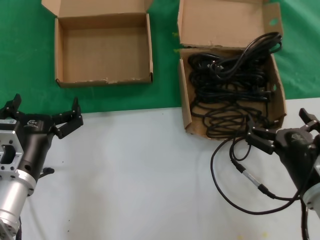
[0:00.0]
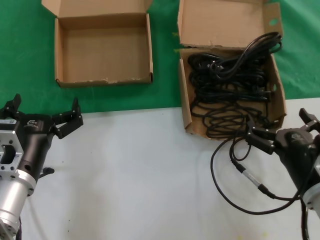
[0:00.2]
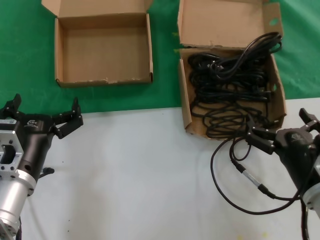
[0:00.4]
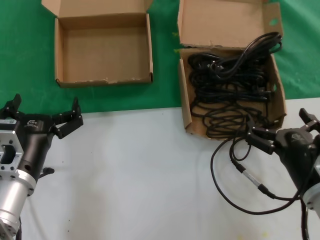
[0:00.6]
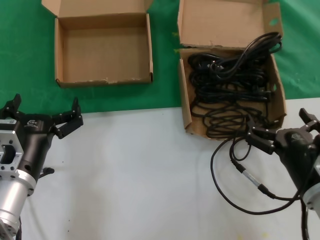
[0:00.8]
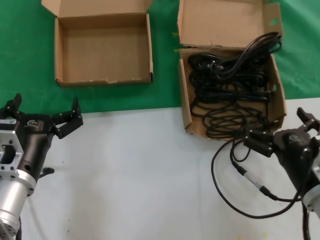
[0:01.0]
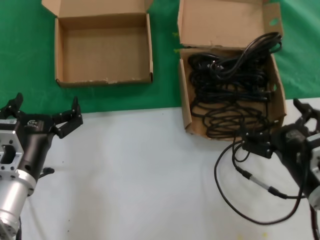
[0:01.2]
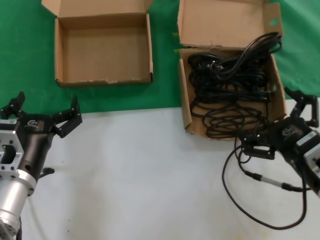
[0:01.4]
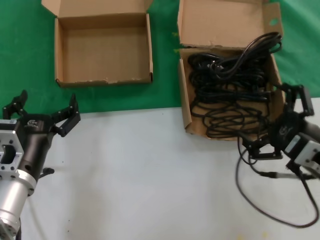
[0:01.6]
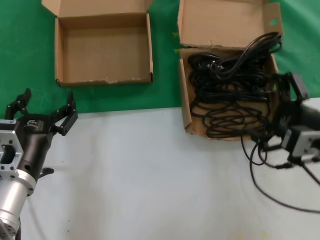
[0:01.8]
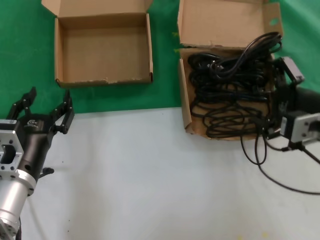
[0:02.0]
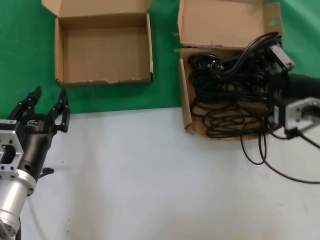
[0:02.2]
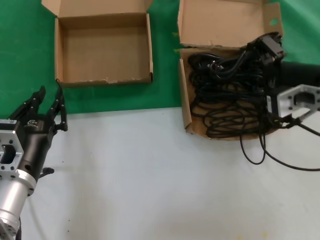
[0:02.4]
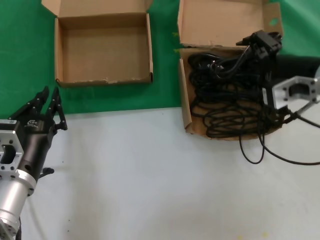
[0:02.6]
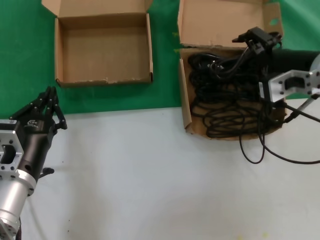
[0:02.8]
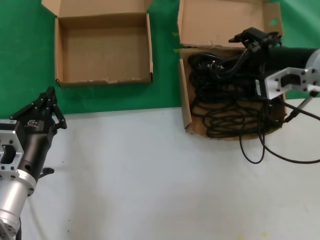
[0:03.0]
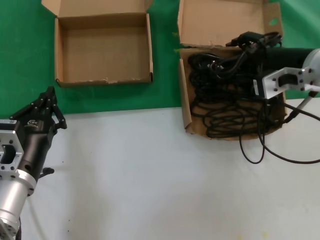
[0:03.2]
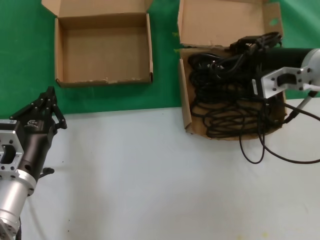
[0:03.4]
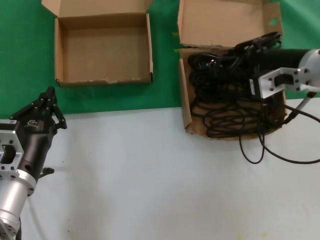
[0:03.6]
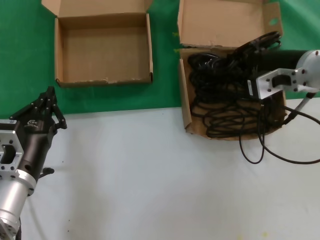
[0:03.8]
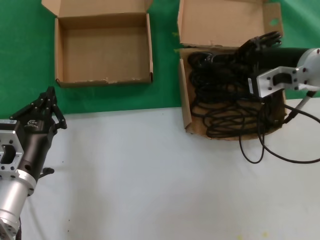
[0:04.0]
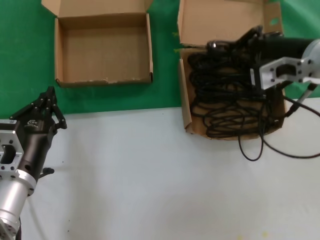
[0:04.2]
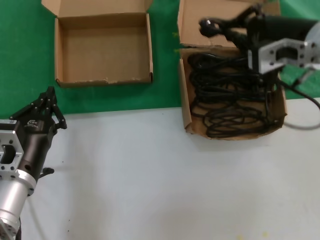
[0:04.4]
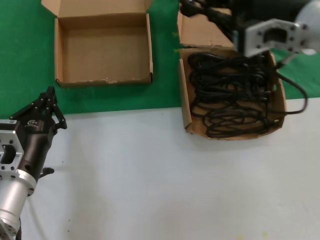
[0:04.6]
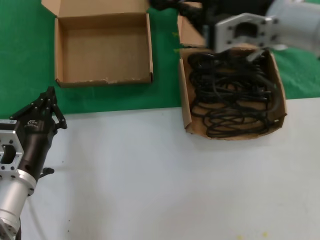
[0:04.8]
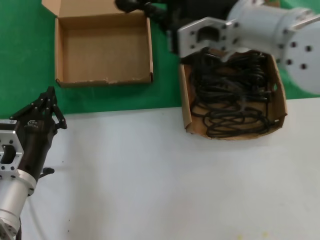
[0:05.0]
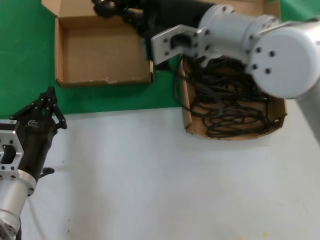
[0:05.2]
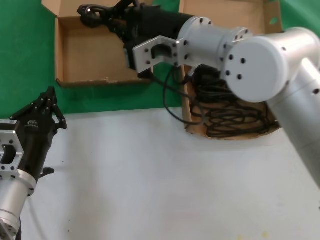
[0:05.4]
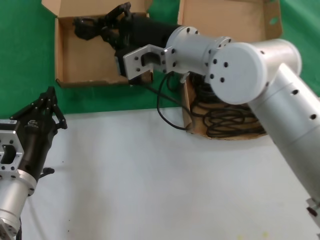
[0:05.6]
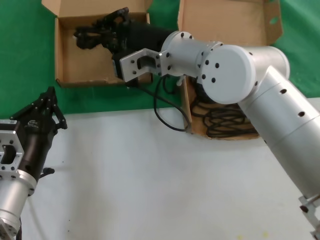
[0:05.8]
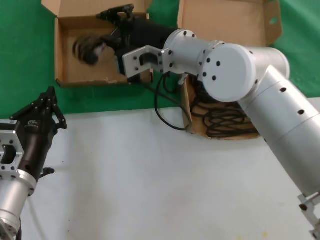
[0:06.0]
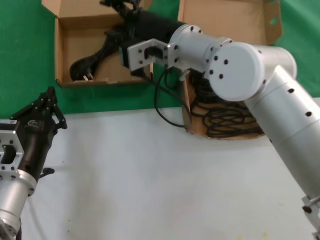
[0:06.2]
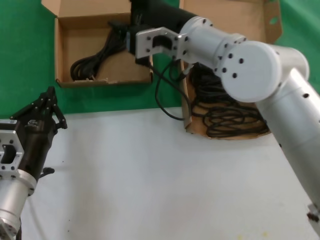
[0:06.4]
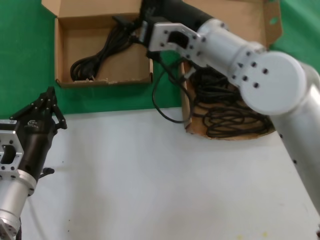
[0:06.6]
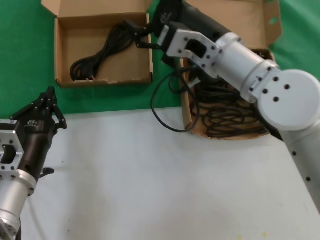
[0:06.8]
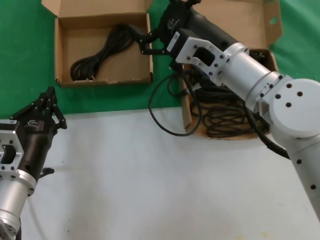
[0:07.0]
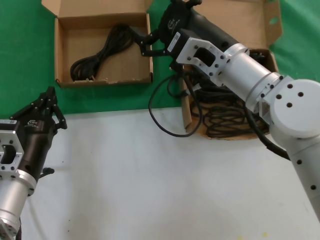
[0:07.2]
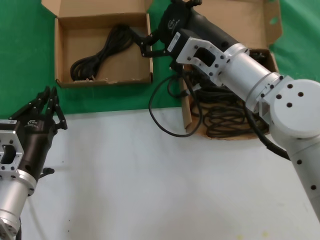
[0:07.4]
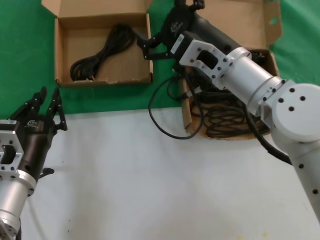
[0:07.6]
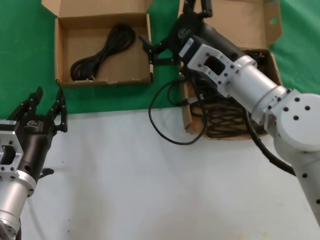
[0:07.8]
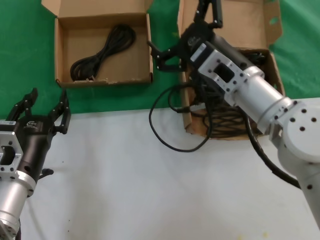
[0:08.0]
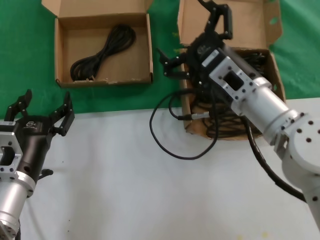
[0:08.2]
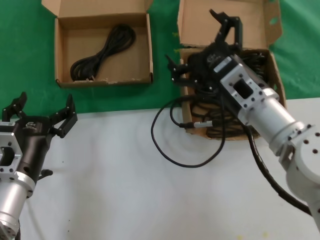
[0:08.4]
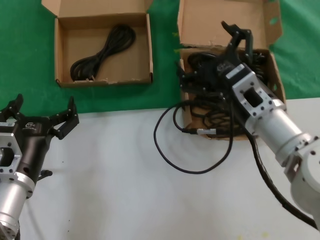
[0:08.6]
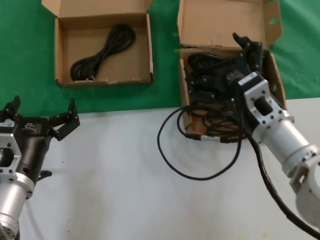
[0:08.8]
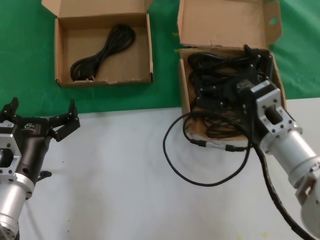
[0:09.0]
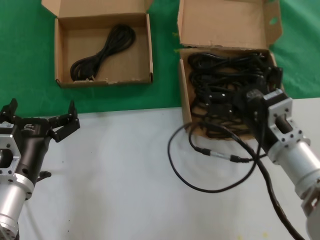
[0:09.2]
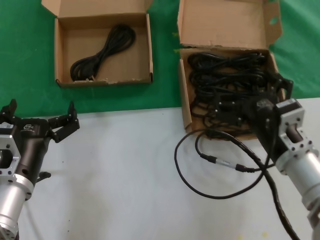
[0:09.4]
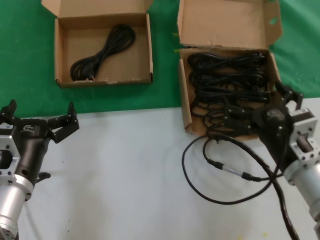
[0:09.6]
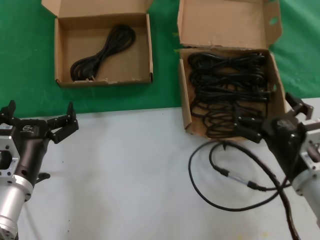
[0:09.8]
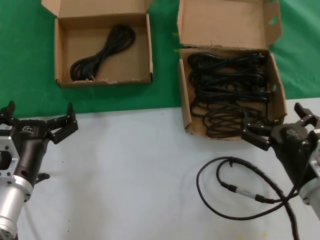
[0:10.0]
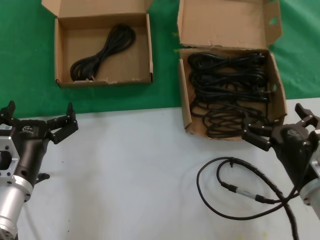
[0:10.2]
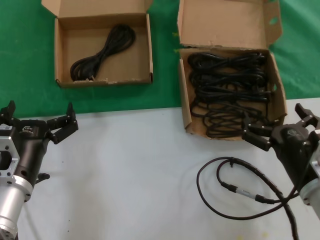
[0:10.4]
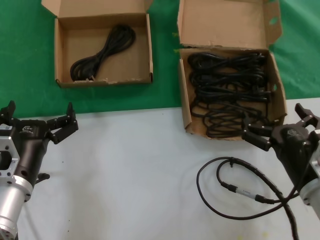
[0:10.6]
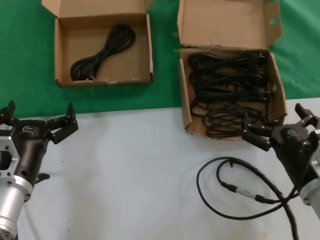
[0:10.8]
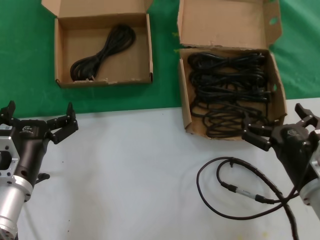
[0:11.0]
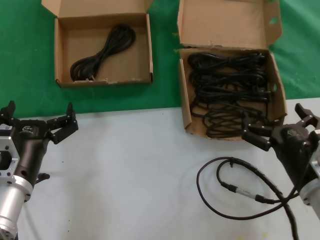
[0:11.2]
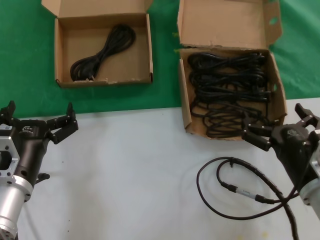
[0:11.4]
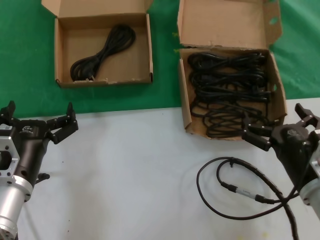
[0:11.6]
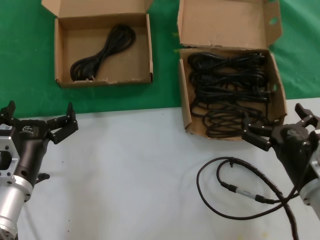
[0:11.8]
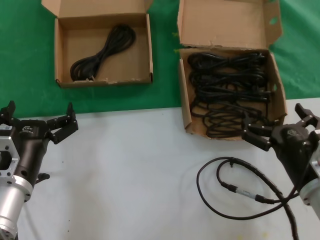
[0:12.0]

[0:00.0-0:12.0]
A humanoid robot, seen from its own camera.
Task of the whole recording: take the parts from the box containing them and put them into an empty box.
Step, 0.0 to 3.8 s: Grasp the data cable.
Step, 4.0 to 6.0 s: Place the data cable in the another box.
0.0 to 1.6 s: The right hand moves upward, approximately 10 cm.
1.6 to 3.0 s: The right hand heads forward and upward, covering roughly 20 cm.
3.0 to 4.4 s: The right hand changes place by roughly 5 cm.
4.4 to 6.0 s: The right hand shifts roughly 20 cm to the left.
6.0 to 7.6 s: The right hand goes approximately 10 cm to the right.
7.6 to 9.0 s: The right hand shifts about 15 cm downward, to the right and backward.
9.0 to 10.4 s: The right hand shifts some 10 cm backward, downward and to the right.
10.4 to 12.0 s: The two hands keep their place.

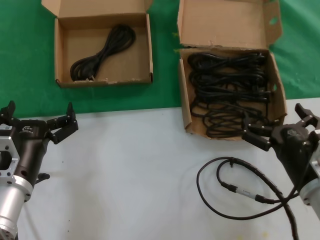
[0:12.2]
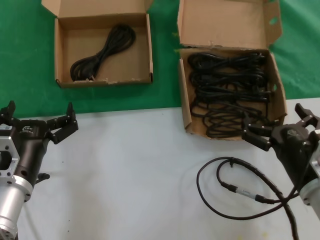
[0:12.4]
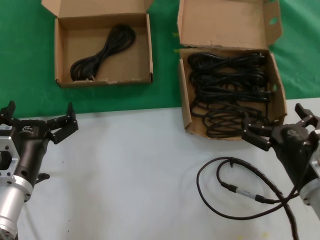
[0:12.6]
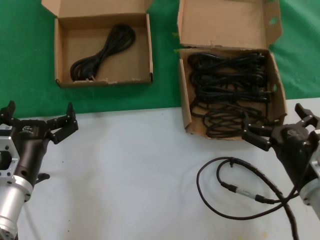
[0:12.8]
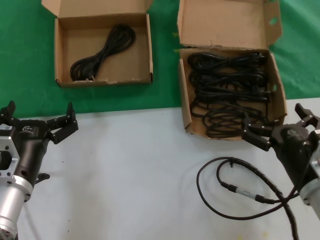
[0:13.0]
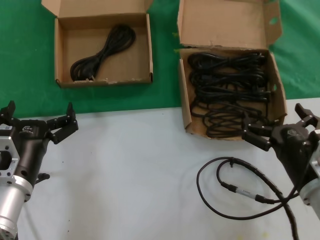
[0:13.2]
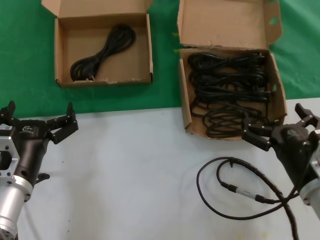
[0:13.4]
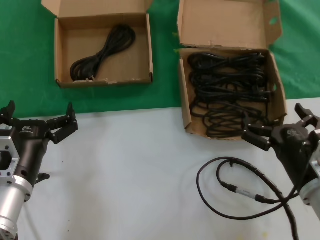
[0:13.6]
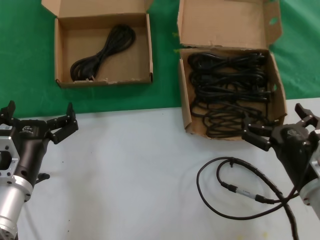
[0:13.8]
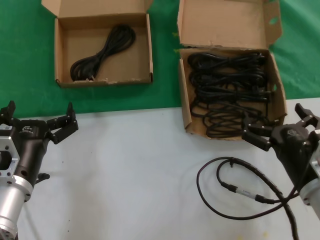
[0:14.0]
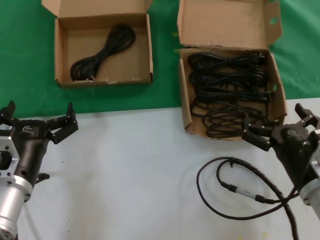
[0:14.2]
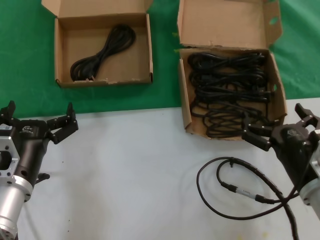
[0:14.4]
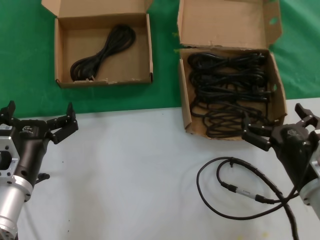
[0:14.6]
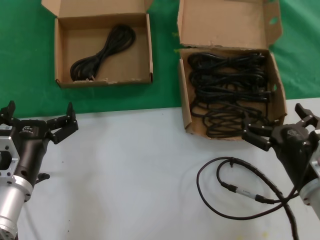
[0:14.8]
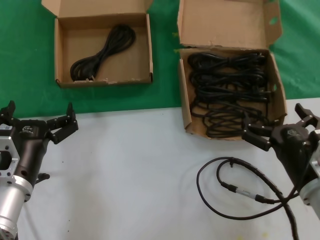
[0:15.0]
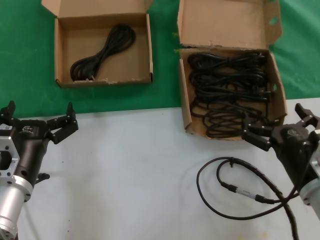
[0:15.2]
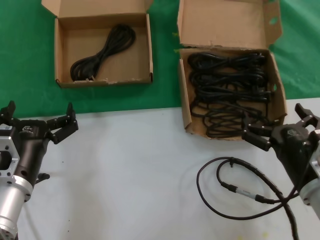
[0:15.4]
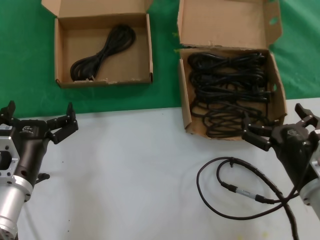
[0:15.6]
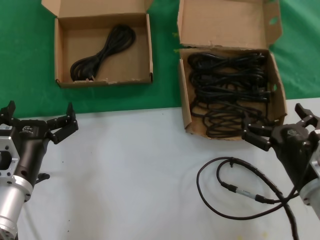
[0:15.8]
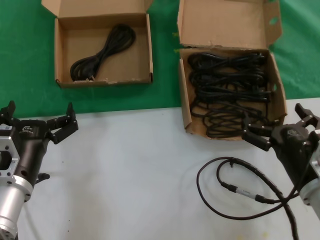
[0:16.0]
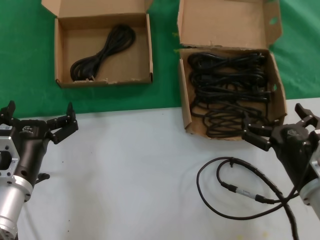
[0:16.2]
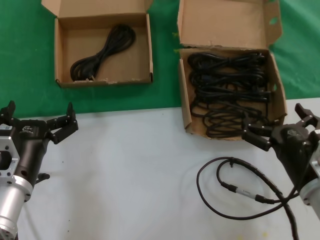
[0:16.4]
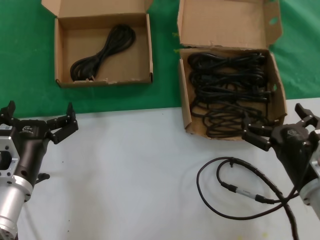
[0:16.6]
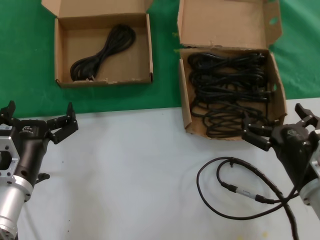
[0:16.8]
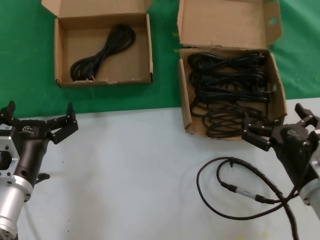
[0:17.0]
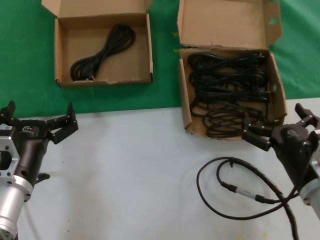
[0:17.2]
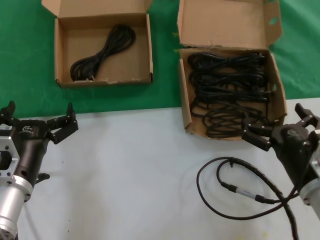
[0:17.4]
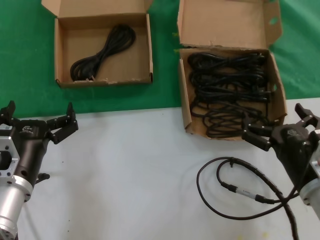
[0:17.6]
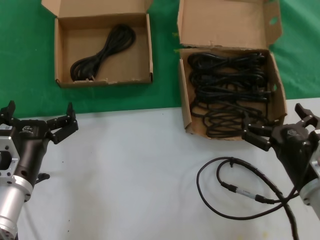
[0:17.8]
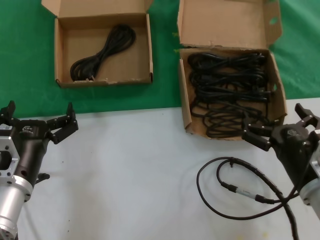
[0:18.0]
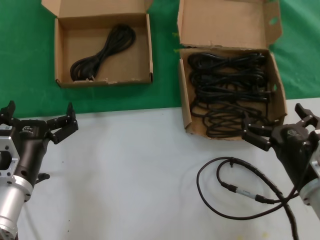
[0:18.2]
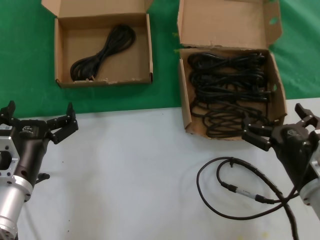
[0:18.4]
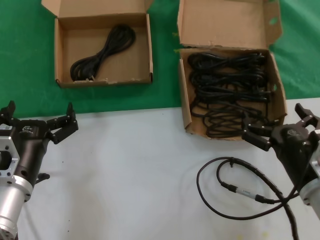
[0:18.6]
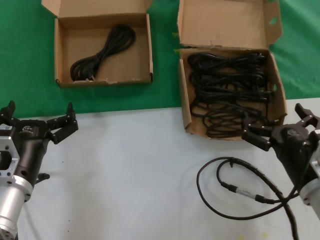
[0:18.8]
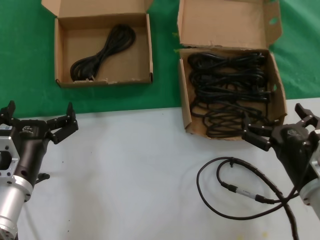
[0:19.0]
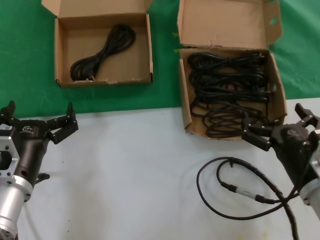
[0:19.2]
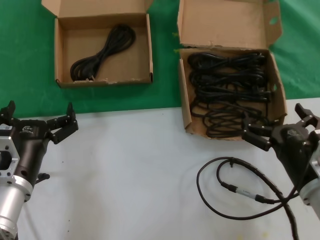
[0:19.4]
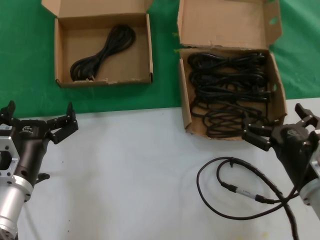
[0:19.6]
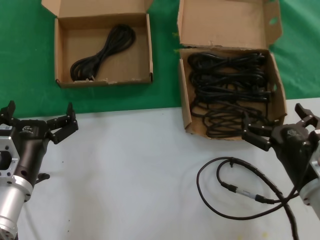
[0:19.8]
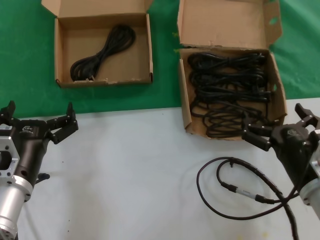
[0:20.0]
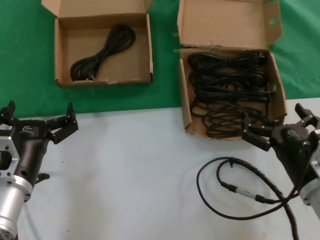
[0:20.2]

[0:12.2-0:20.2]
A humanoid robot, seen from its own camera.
Task of the whole recording: take the parts from the box containing them and put them into an empty box.
12.2 to 20.2 s: The two hands keep their place.

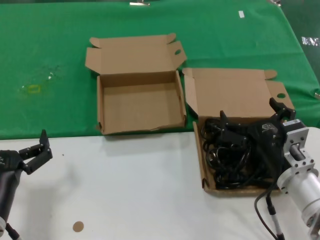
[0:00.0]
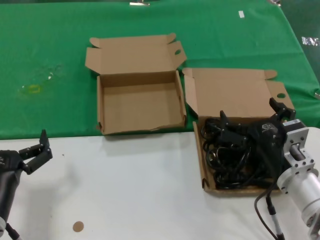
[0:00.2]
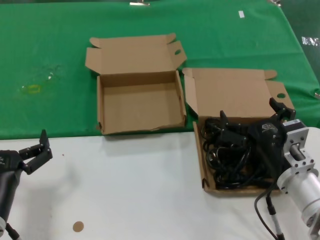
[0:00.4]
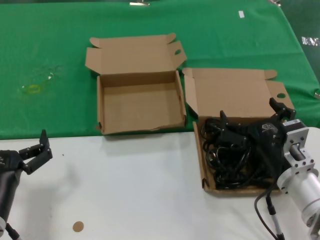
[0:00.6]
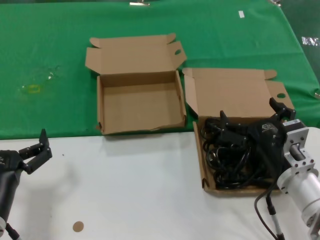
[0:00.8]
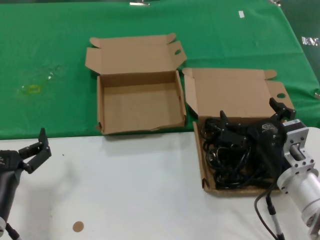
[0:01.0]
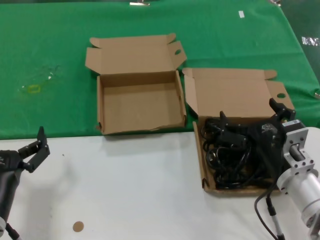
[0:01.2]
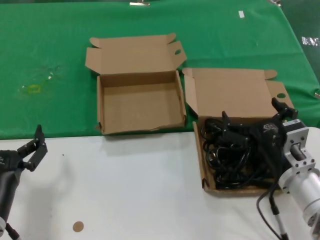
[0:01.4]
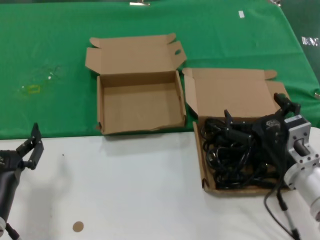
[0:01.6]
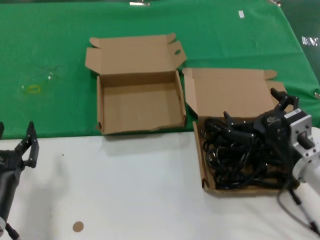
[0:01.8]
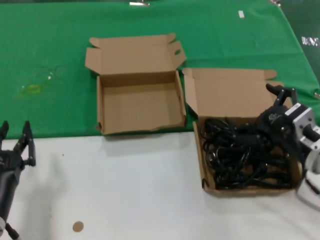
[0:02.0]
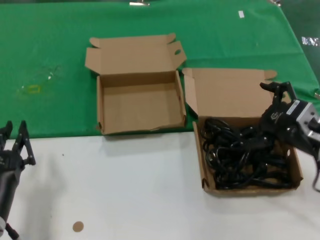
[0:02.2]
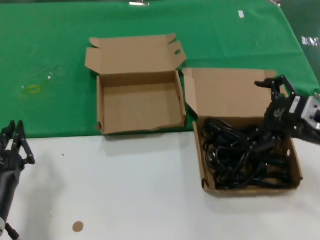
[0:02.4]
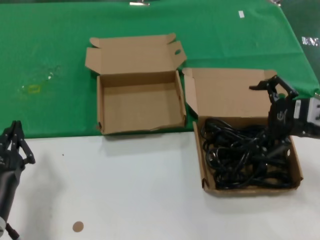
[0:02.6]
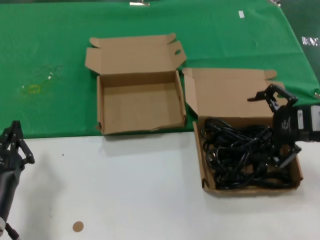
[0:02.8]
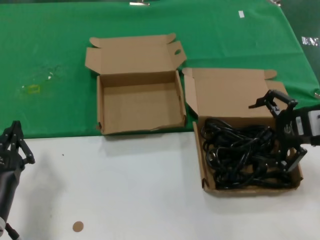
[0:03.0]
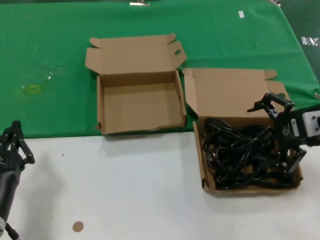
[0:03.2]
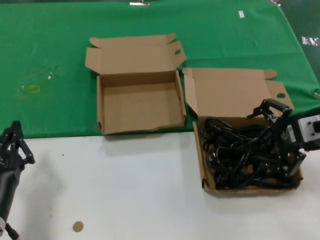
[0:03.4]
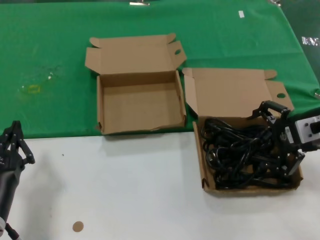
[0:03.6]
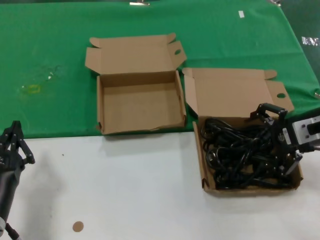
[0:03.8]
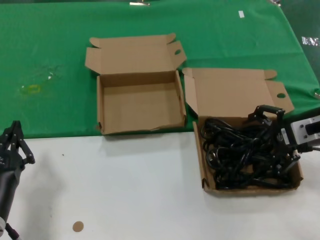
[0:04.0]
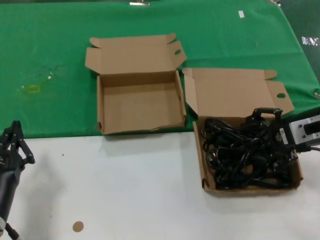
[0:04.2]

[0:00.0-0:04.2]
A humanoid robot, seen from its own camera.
Task of the whole recording: take the parts from the box containing them and put them into an empty box.
0.0 to 1.4 s: Both hands stay about where they are.
1.4 to 2.8 s: The right hand goes about 20 cm upward and to the right.
2.8 to 4.2 s: The right hand changes place by roughly 5 cm.
